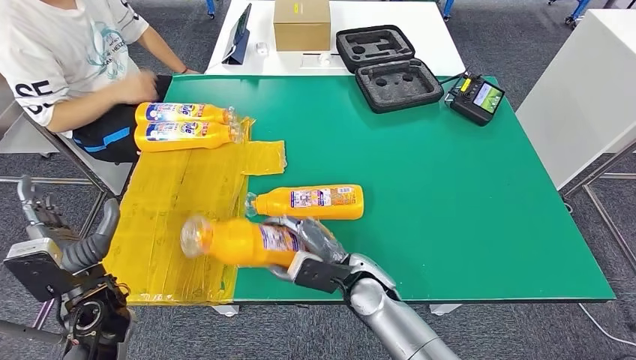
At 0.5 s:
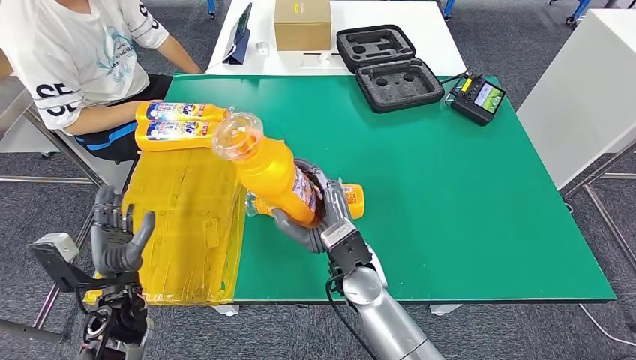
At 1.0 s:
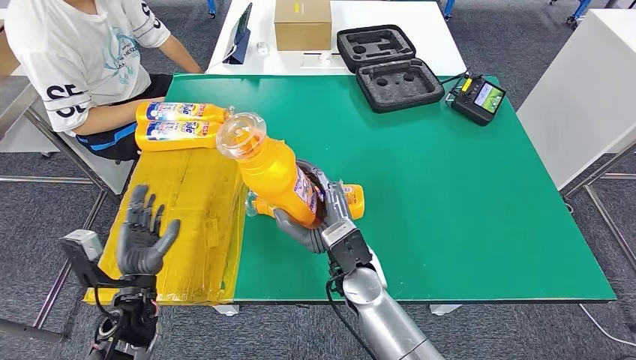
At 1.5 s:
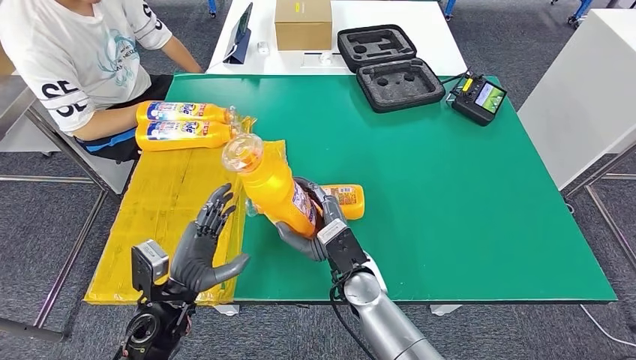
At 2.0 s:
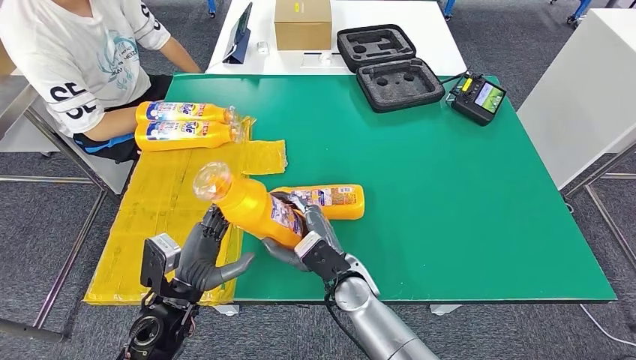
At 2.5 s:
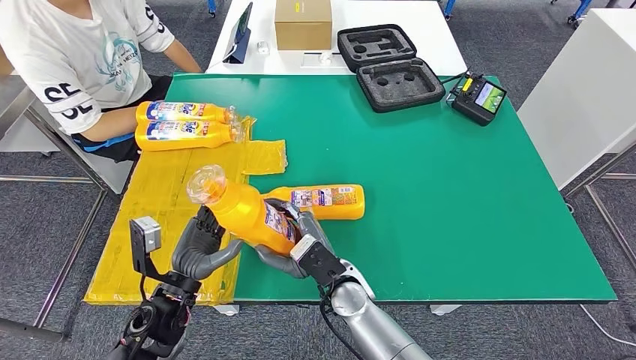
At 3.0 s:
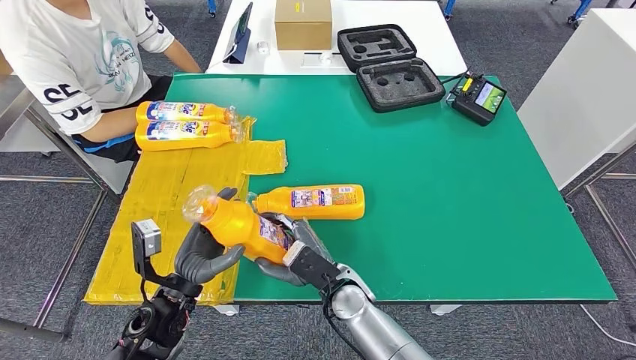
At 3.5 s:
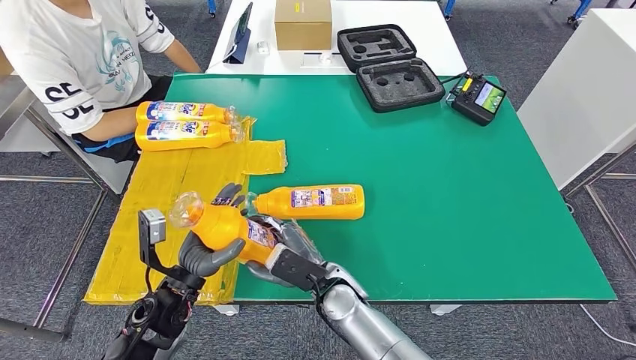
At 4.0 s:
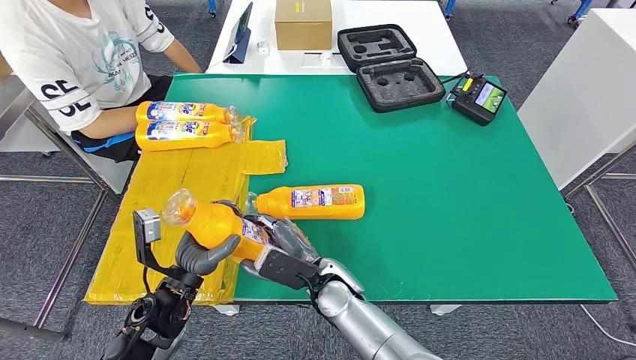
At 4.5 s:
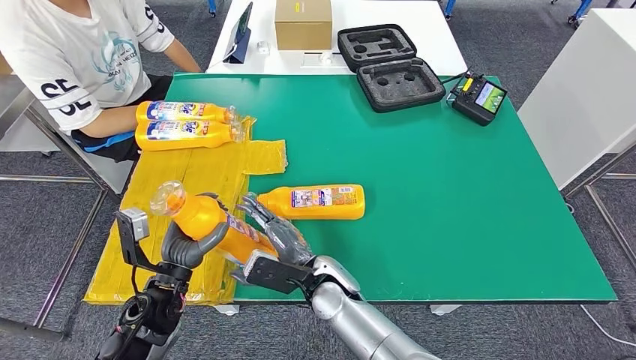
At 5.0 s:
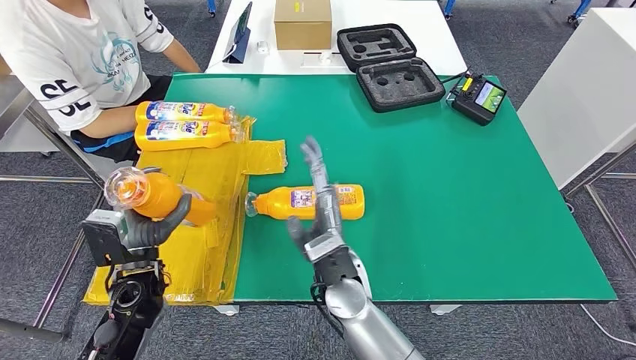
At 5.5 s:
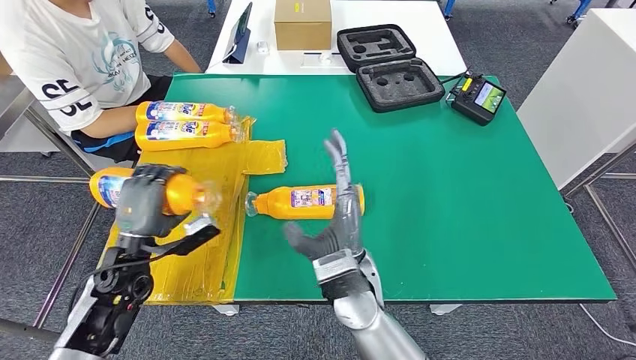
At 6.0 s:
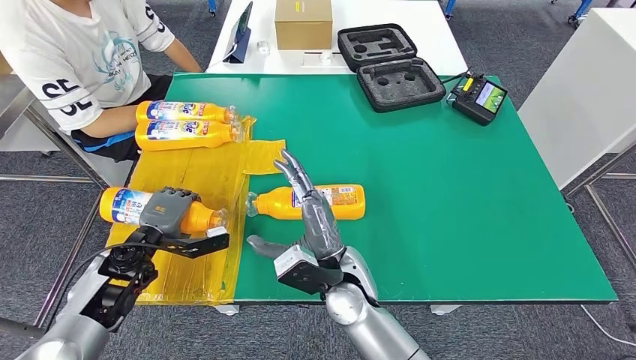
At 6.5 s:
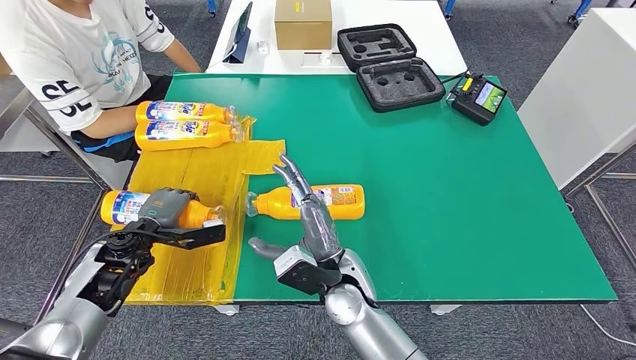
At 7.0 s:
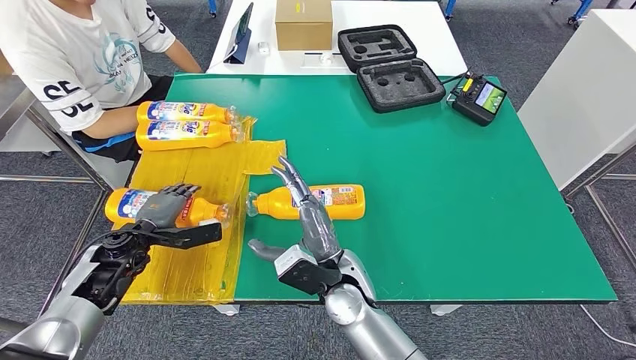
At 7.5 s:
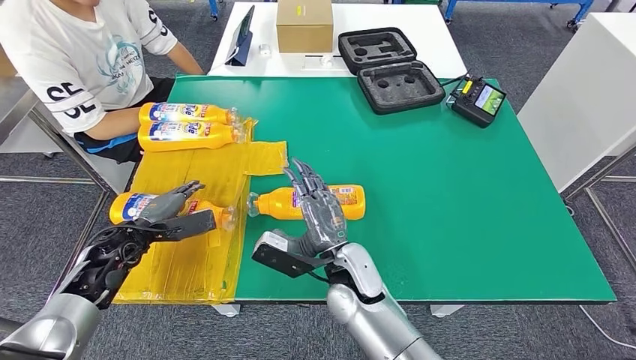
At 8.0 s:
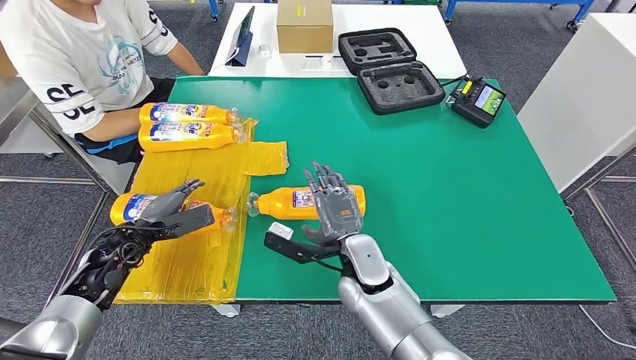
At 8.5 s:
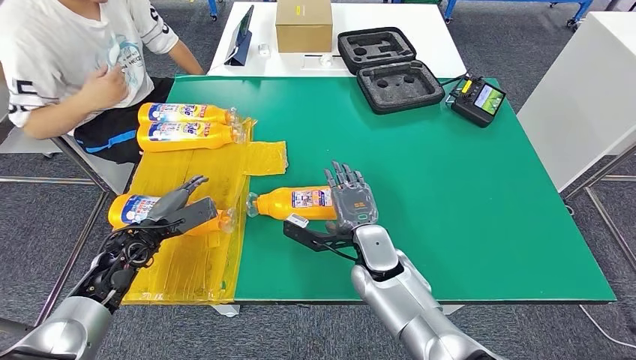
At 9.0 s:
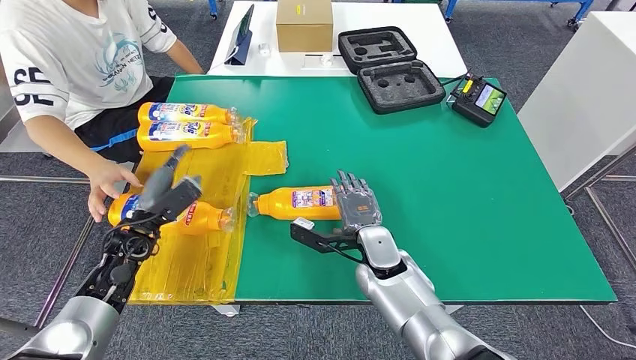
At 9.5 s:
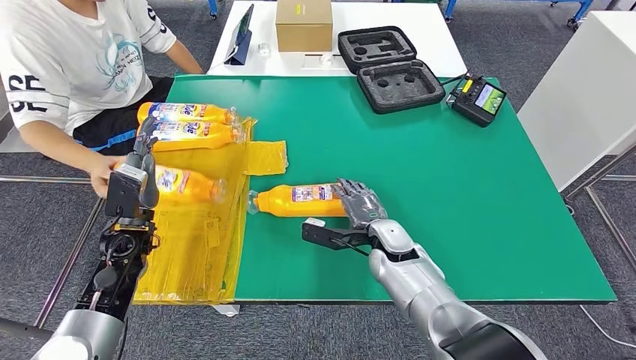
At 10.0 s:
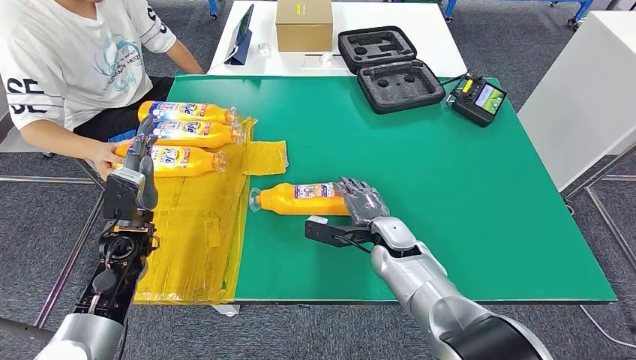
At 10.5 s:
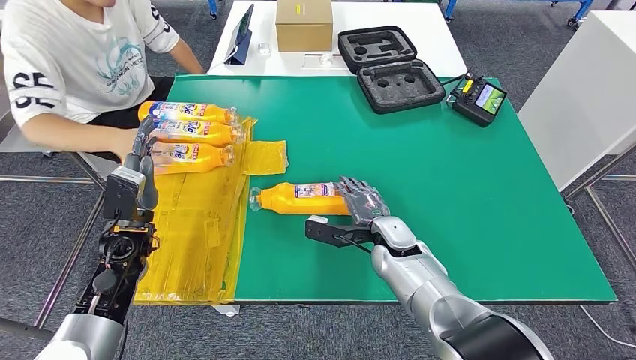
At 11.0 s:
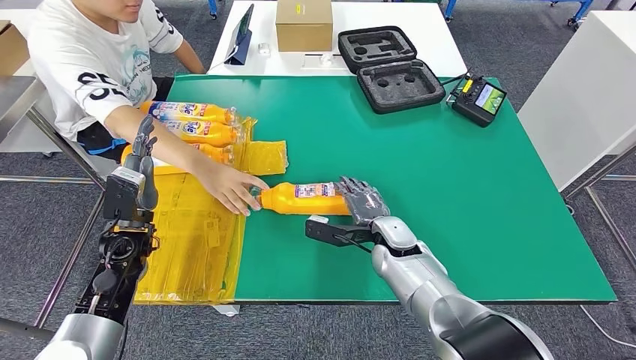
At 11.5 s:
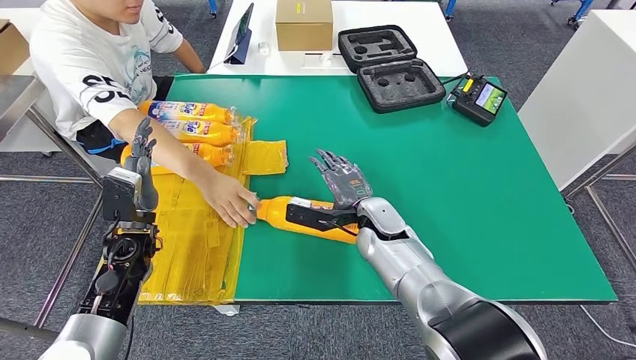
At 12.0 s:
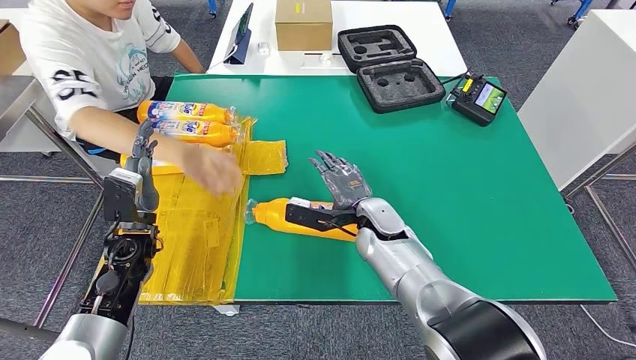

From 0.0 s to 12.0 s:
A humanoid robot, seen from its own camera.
Step, from 0.0 s to 1.5 s: Pick up the bottle from the table.
Step, from 2.5 s to 8.0 s: Flip the bottle to face forward.
From 4.0 s to 6.0 s: The left hand shifts about 10 cm to the left and forward. The right hand travels upward by about 5 cm.
From 10.0 s to 12.0 s: The right hand shifts by about 5 cm.

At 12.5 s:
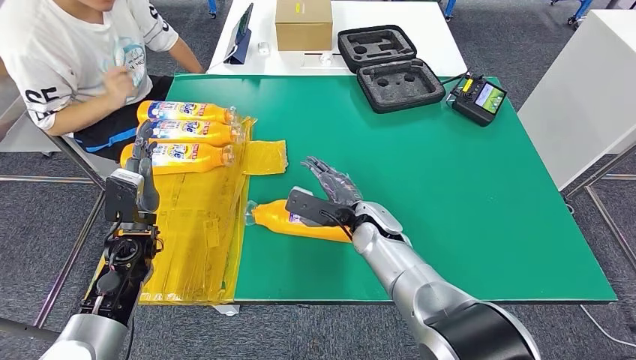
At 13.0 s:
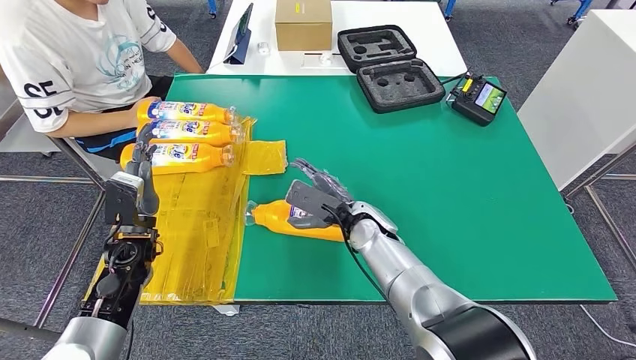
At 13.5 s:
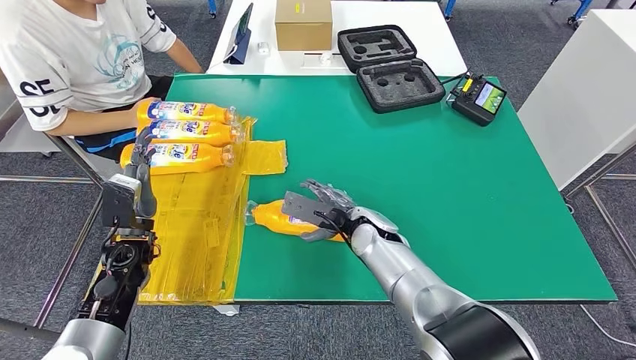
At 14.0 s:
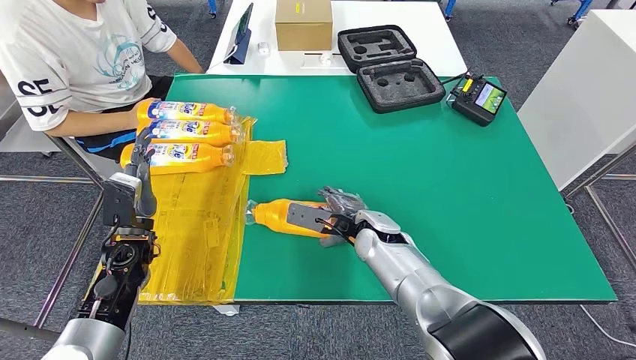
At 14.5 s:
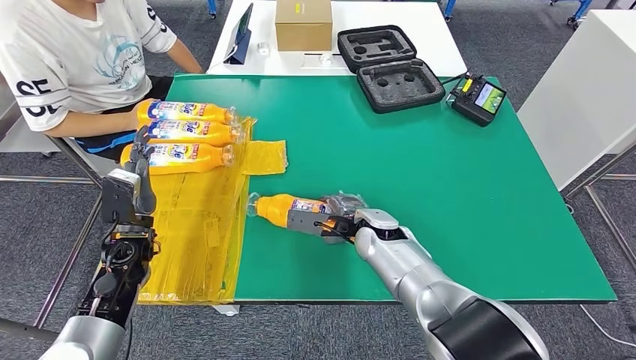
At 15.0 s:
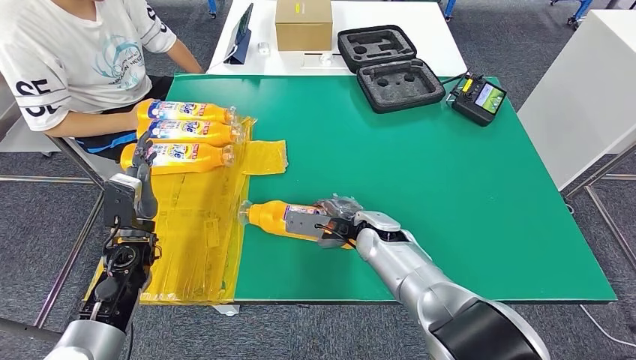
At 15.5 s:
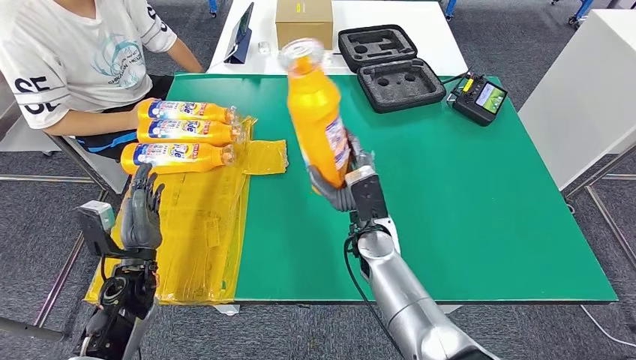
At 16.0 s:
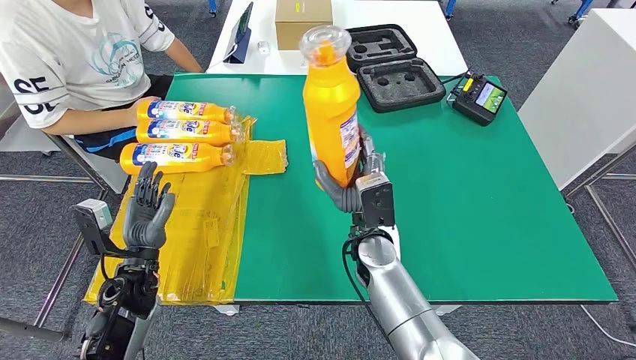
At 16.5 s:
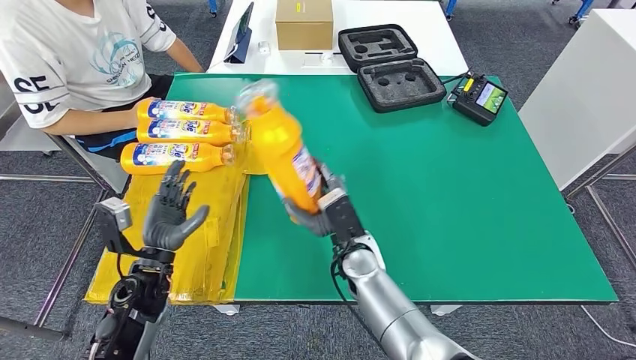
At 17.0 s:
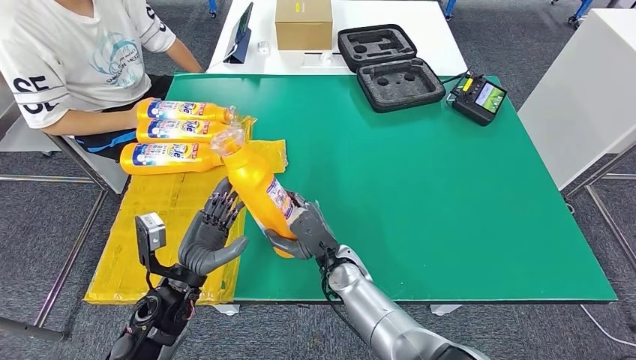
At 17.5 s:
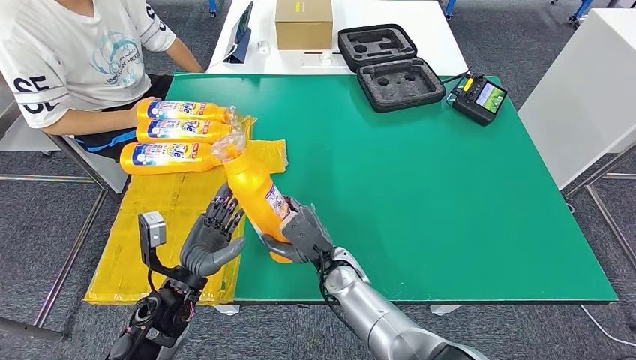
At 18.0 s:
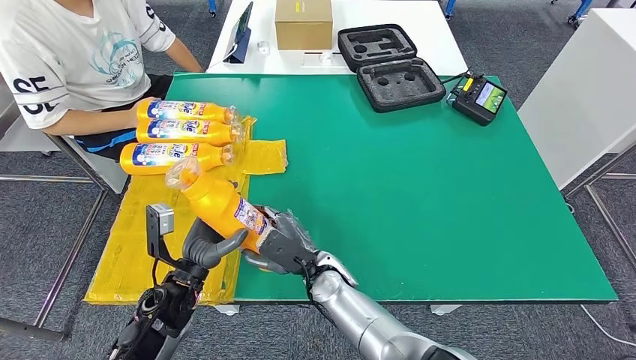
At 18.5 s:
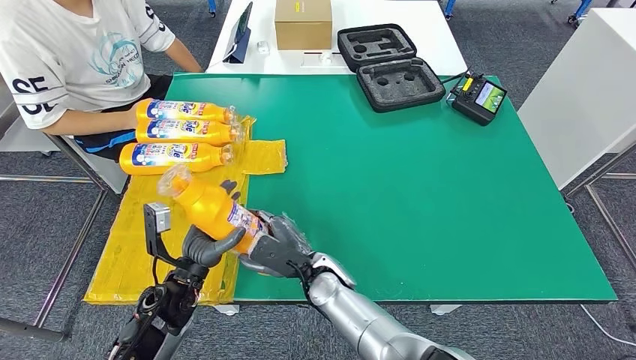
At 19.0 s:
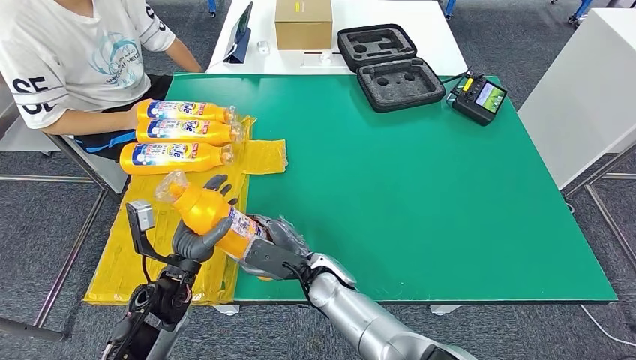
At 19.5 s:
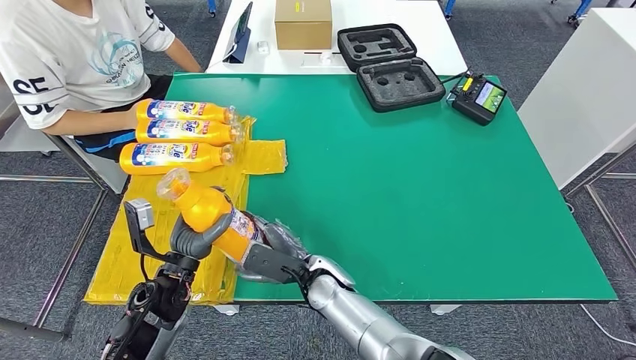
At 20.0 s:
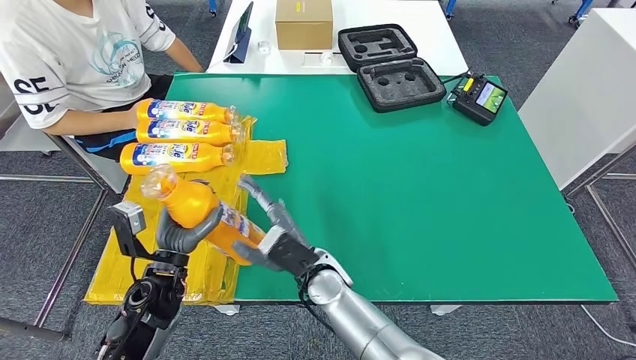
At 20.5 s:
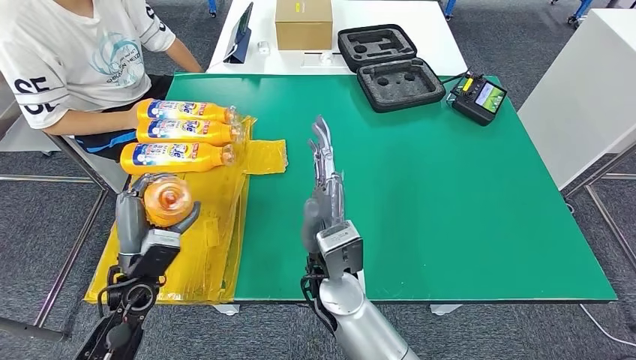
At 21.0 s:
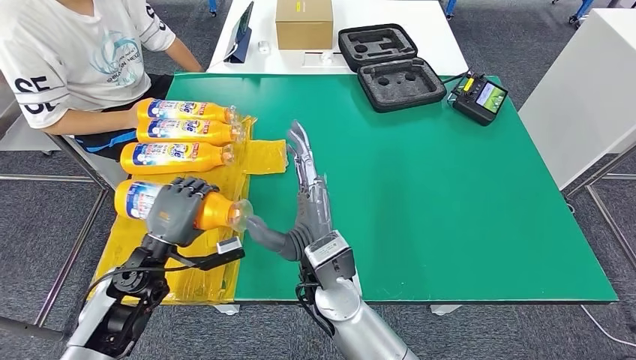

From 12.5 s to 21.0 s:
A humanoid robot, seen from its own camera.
Step, from 14.5 s to 16.5 s: Pick up the bottle from the table.
From 16.5 s to 19.0 s: The right hand goes approximately 5 cm to the left.
From 19.0 s to 21.0 s: The left hand goes roughly 5 cm to the left. The right hand goes approximately 10 cm upward.
